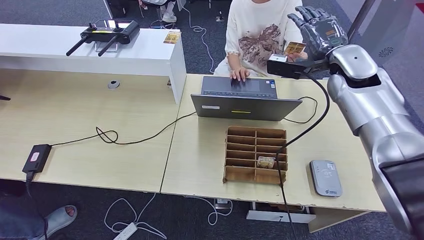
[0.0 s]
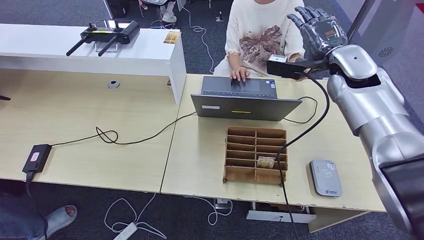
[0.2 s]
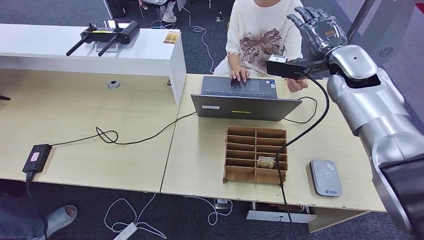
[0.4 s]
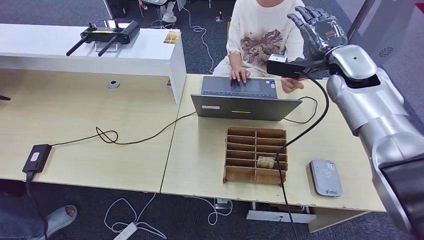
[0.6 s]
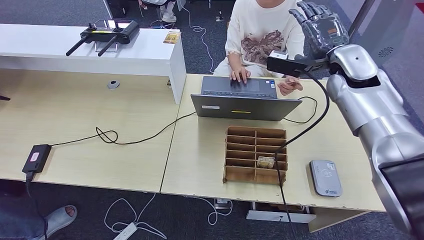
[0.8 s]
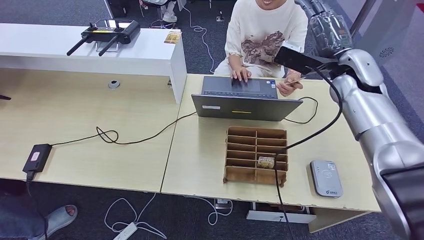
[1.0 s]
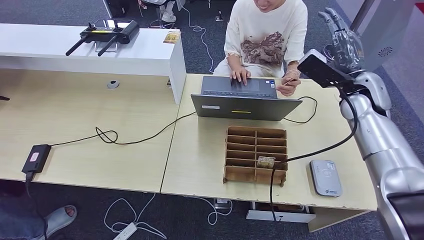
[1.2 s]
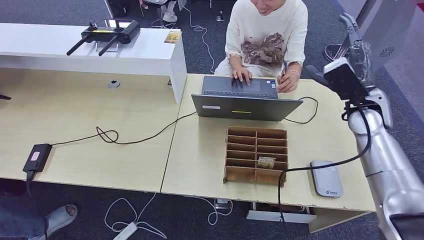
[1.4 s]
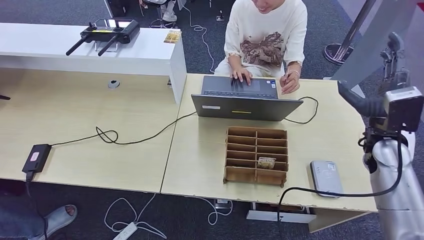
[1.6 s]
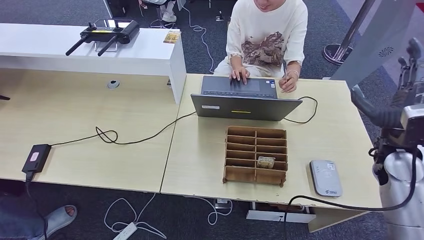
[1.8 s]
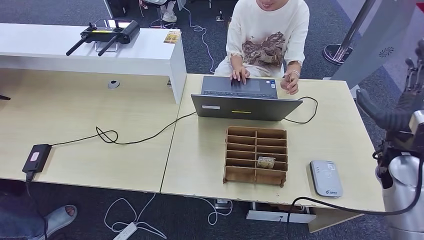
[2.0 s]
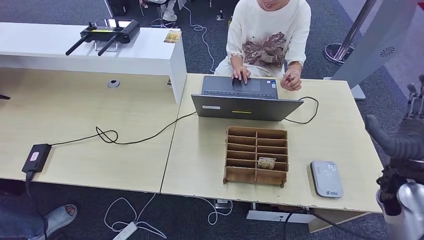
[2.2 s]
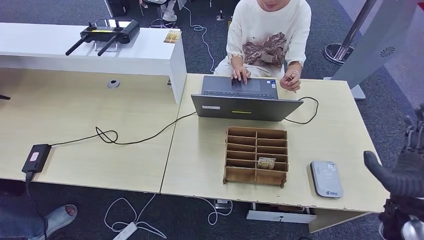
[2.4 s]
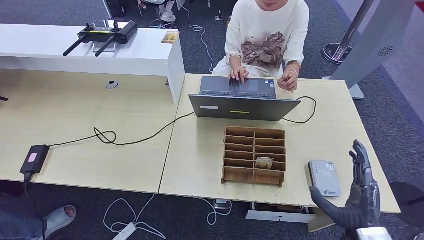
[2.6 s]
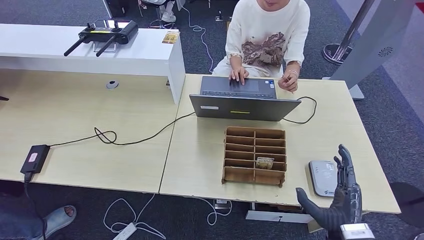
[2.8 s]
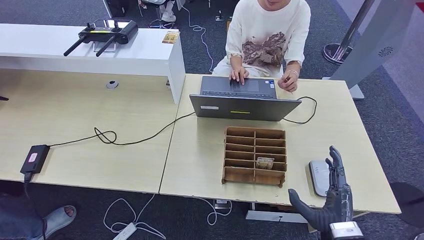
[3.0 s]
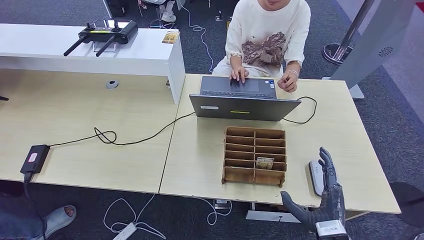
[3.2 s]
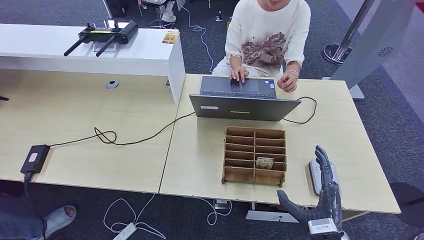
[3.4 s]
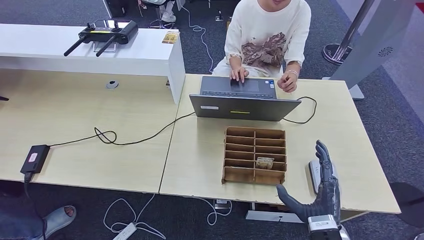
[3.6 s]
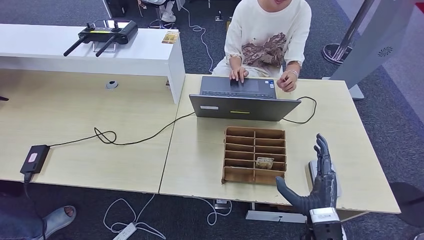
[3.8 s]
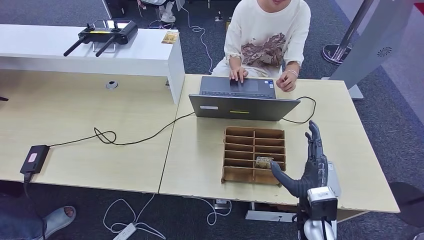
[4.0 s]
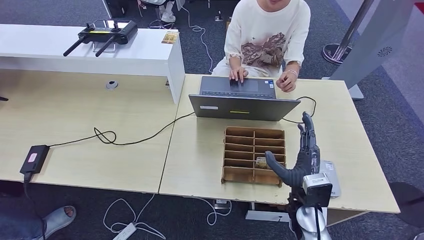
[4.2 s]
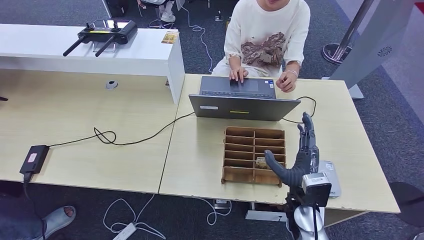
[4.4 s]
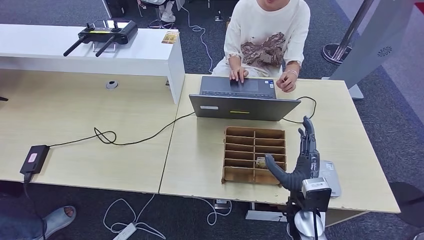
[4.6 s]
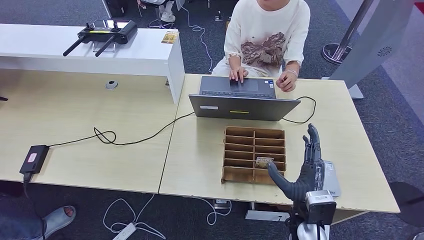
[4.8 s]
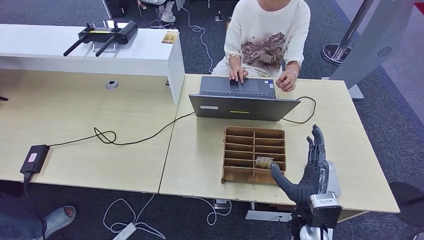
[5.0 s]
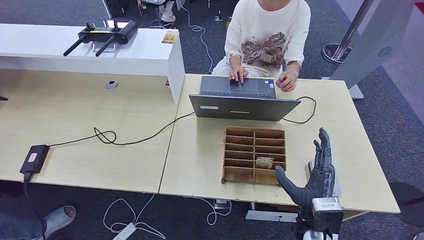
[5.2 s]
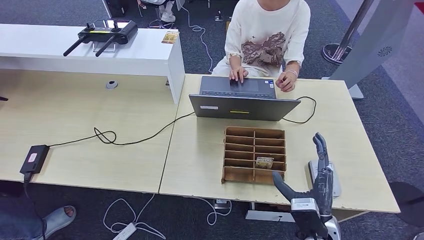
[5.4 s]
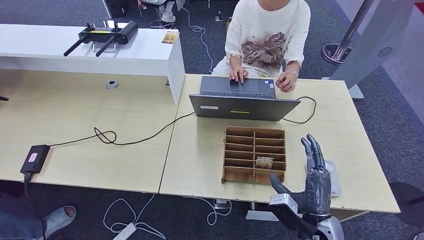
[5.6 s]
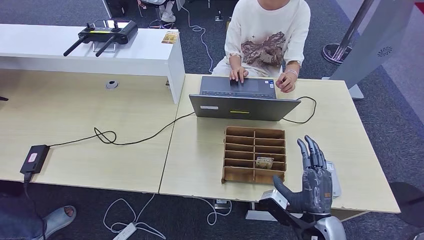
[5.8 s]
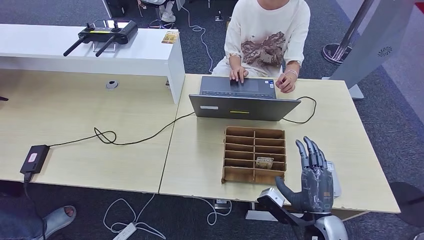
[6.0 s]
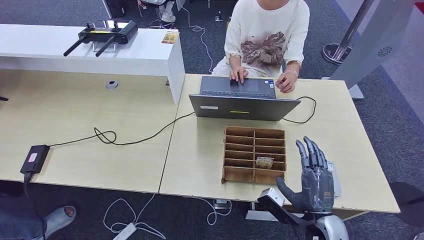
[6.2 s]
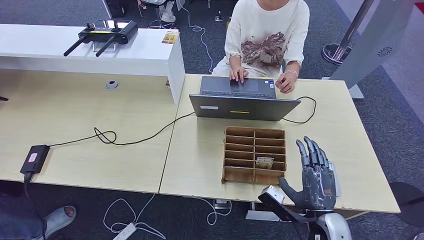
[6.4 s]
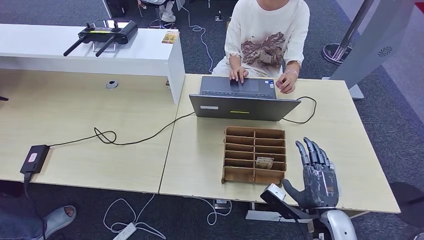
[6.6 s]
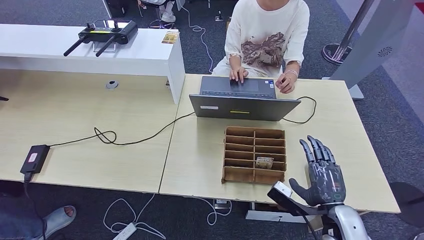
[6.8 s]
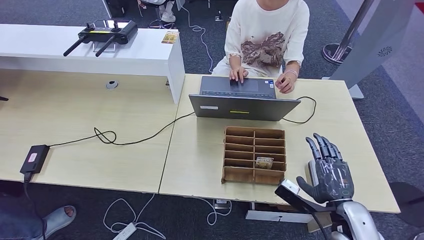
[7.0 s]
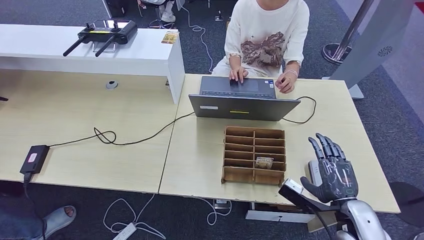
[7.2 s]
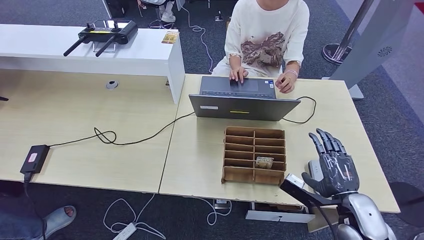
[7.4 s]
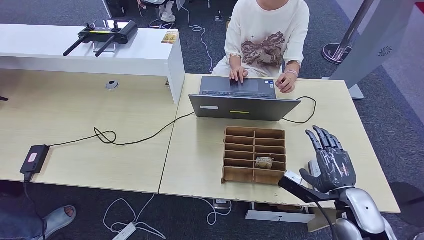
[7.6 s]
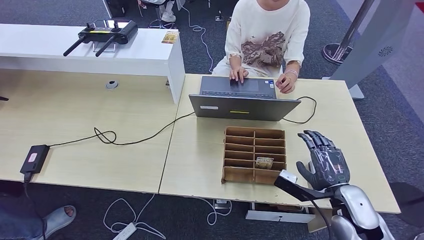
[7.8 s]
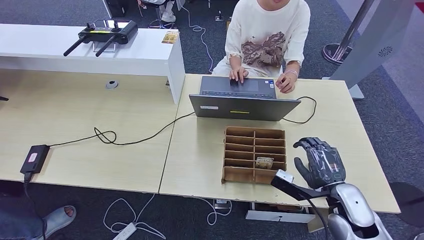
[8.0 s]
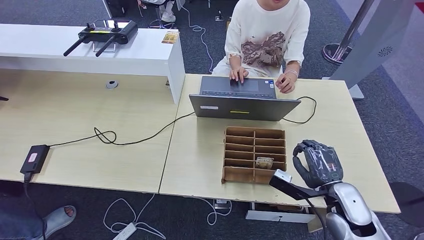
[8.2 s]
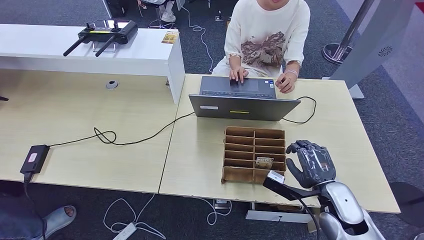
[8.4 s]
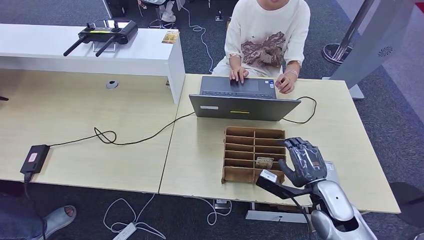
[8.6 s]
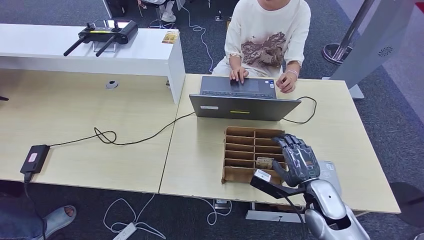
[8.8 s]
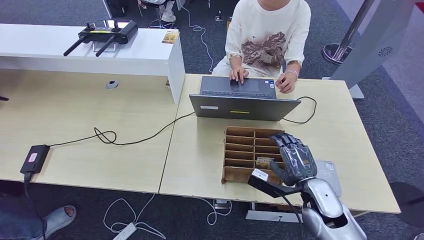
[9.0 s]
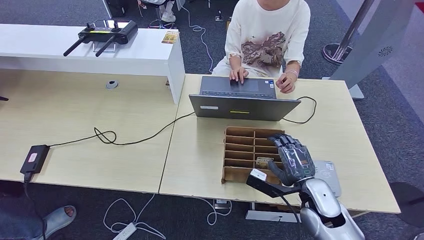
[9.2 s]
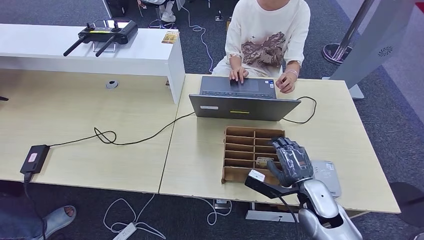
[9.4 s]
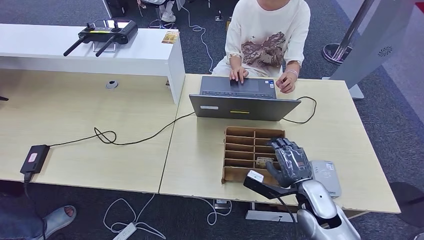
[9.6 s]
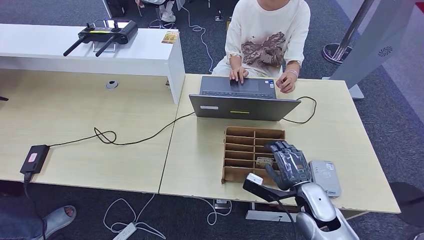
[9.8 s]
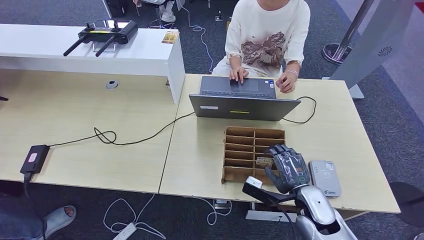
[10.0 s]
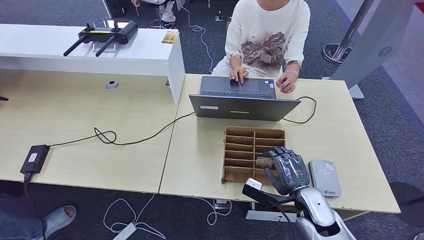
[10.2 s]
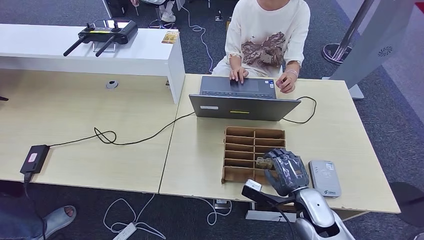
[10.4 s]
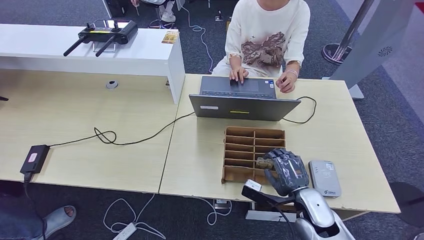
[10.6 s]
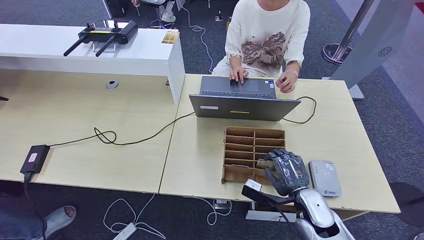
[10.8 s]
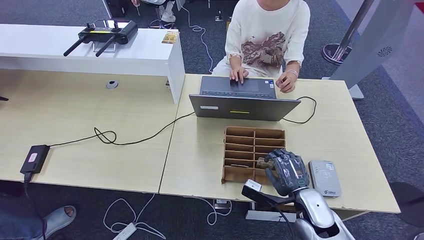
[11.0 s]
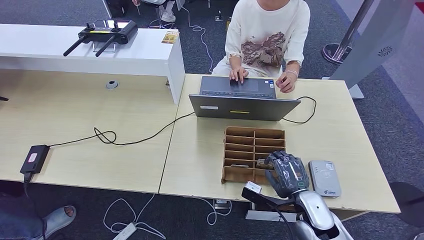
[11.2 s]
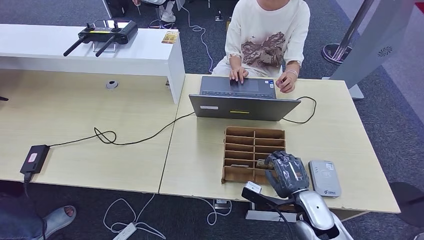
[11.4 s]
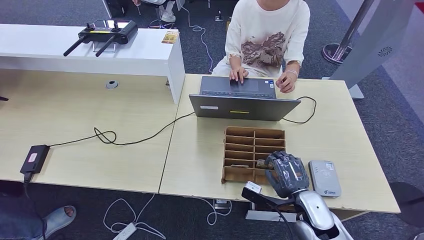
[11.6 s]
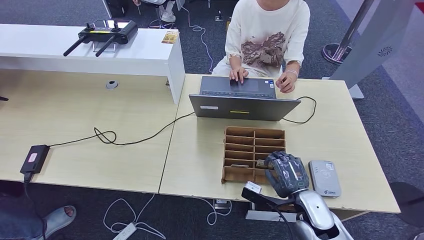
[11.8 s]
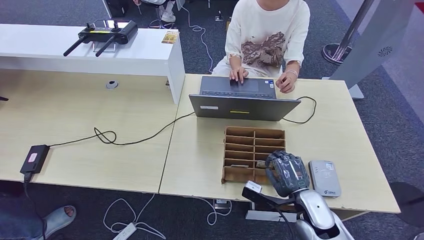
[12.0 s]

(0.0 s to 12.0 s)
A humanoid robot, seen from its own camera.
0.0 s - 1.6 s: The right hand shifts approximately 15 cm backward, downward and to the right.
1.6 s - 3.0 s: The right hand goes approximately 30 cm backward, downward and to the left.
3.0 s - 4.4 s: The right hand shifts roughly 10 cm forward and to the left.
4.4 s - 6.0 s: The right hand heads backward, covering about 5 cm.
6.0 s - 7.6 s: The right hand heads to the right and forward, covering approximately 10 cm.
7.6 s - 9.0 s: The right hand travels to the left by some 5 cm.
9.0 s - 10.4 s: The hands move only a little.
10.4 s - 12.0 s: The two hands keep their place.

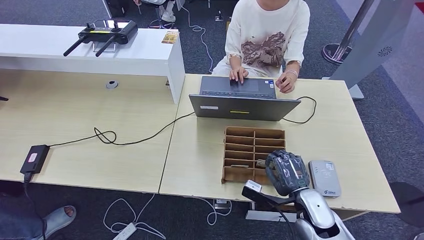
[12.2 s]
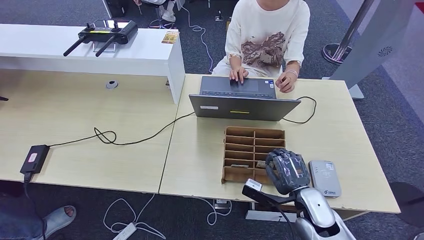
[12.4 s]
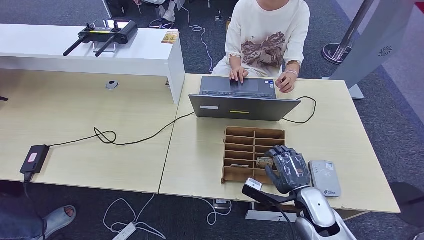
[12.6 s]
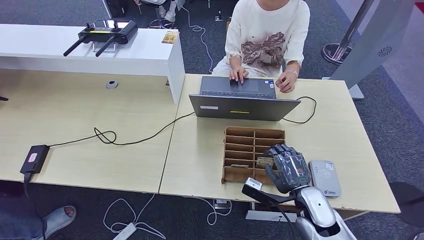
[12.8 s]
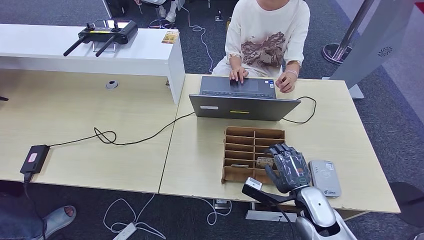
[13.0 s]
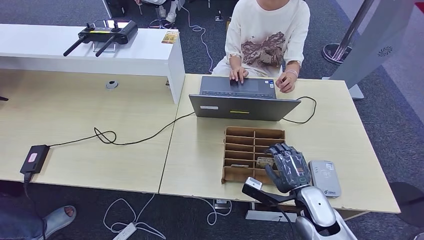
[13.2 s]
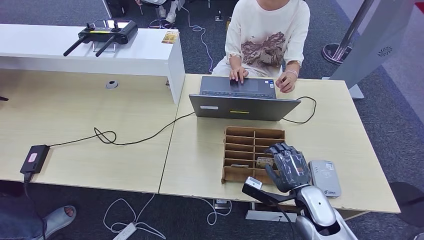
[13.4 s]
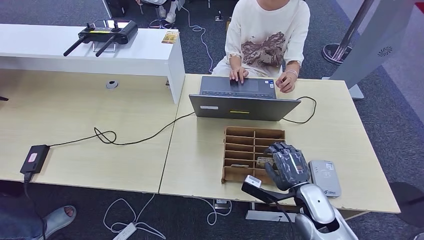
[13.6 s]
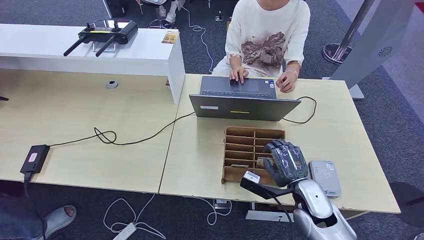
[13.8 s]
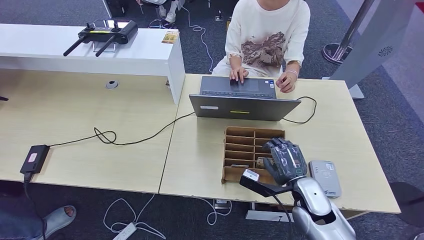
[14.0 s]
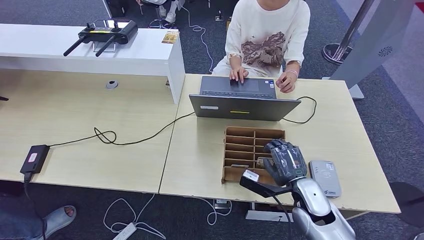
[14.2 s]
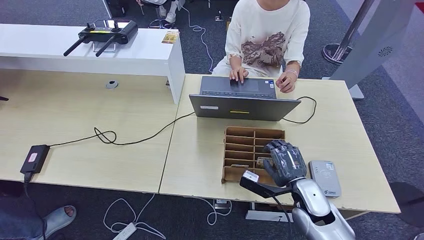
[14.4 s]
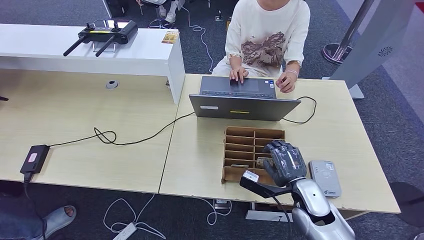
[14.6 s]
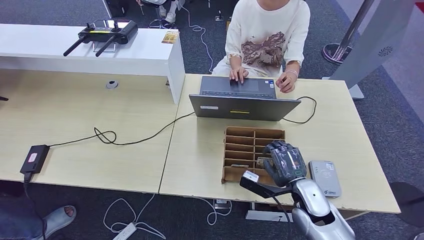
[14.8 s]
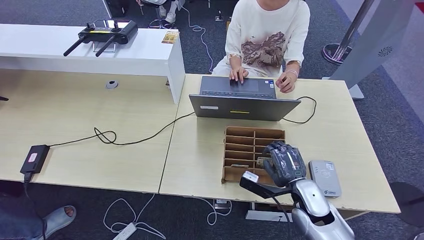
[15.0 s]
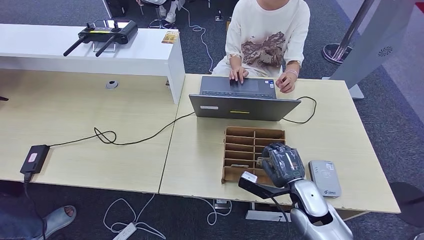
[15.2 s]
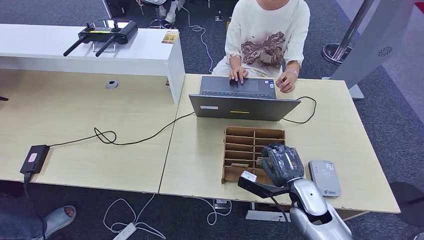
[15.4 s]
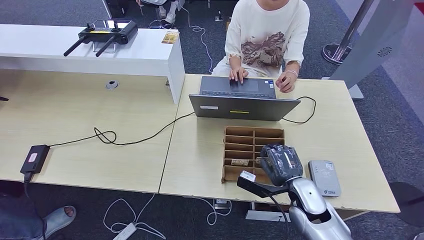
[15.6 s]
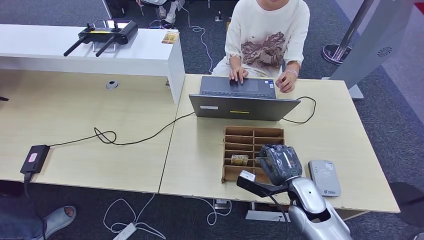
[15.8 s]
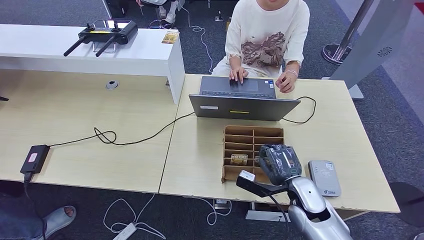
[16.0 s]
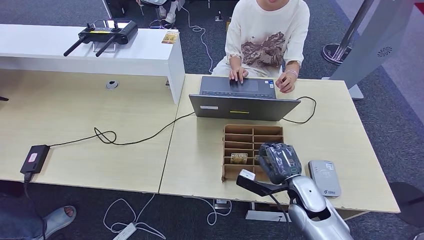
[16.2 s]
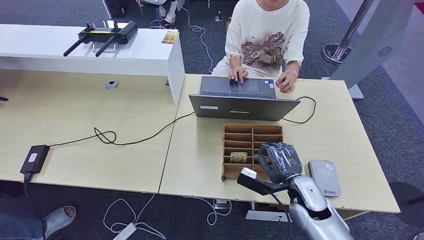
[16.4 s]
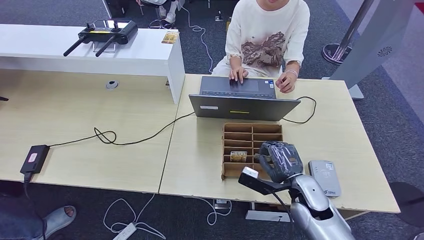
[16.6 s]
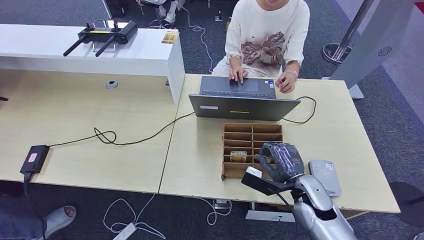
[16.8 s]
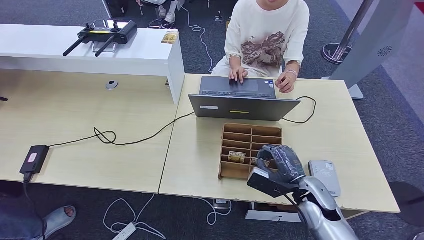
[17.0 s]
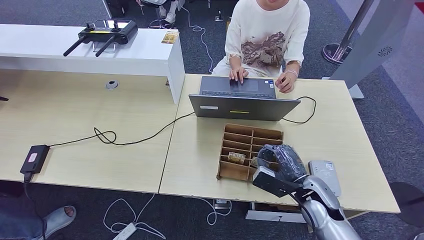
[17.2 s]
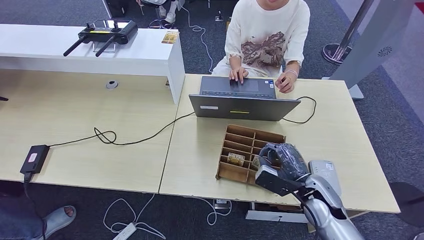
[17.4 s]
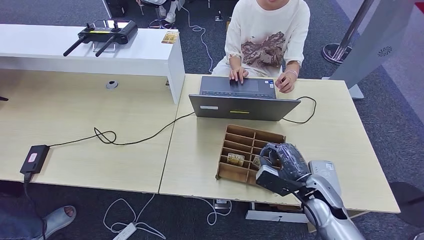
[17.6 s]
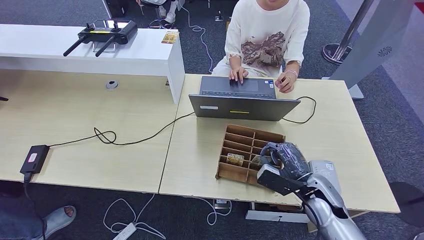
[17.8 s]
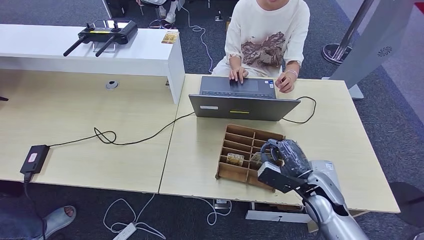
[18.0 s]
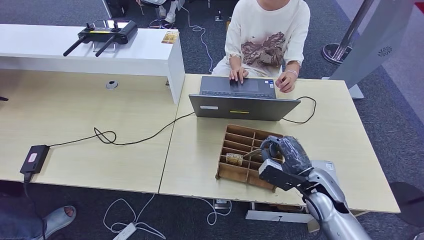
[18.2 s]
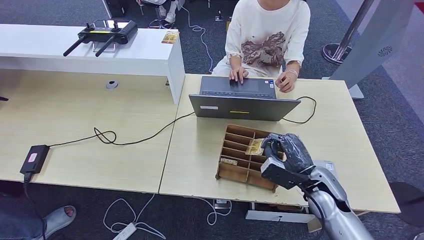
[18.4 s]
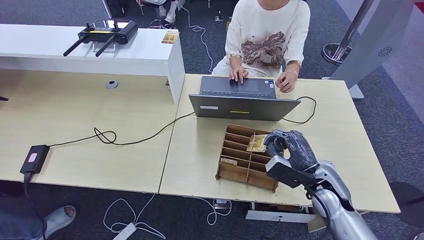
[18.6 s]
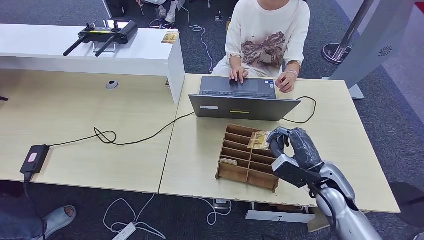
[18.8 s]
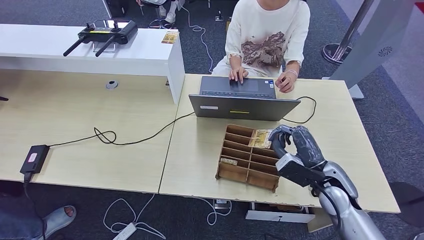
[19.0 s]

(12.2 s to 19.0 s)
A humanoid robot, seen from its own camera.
12.2 s - 13.6 s: The two hands keep their place.
13.6 s - 15.0 s: The hands make only small movements.
15.0 s - 16.2 s: Both hands stay about where they are.
17.6 s - 19.0 s: The right hand shifts by about 5 cm.
